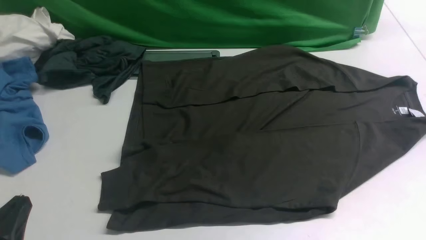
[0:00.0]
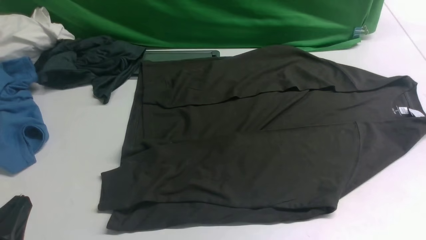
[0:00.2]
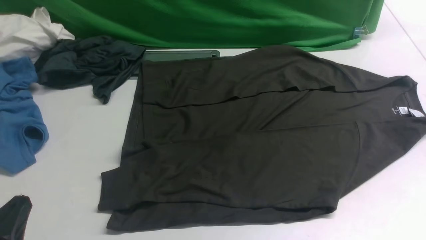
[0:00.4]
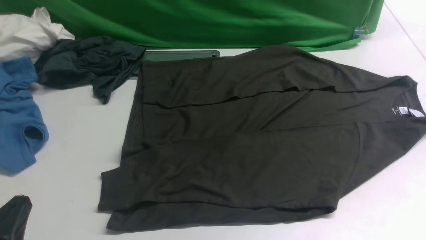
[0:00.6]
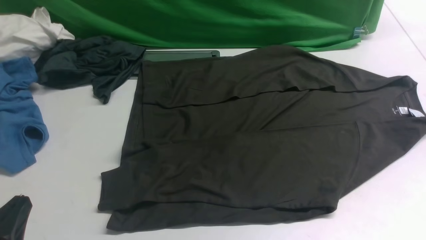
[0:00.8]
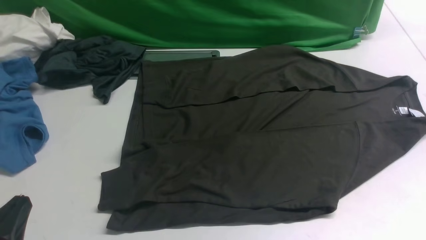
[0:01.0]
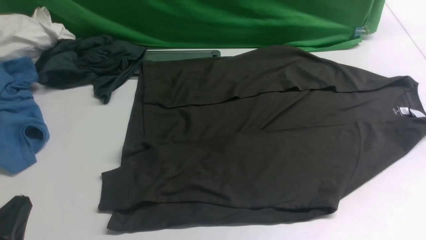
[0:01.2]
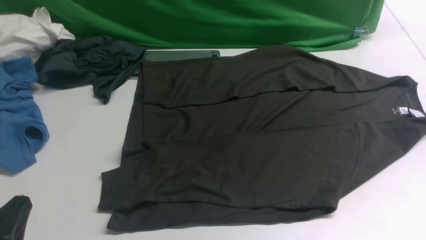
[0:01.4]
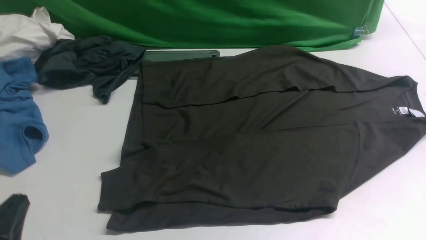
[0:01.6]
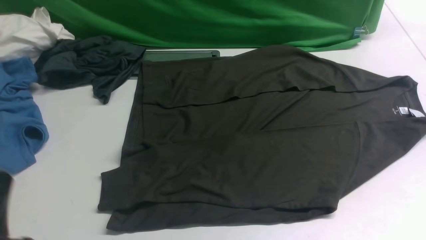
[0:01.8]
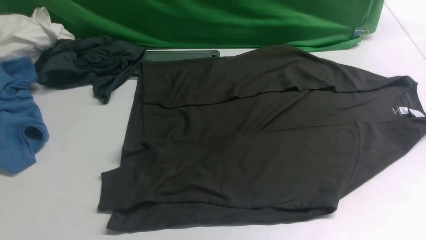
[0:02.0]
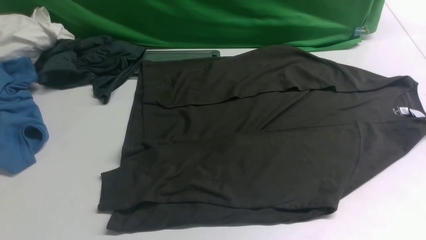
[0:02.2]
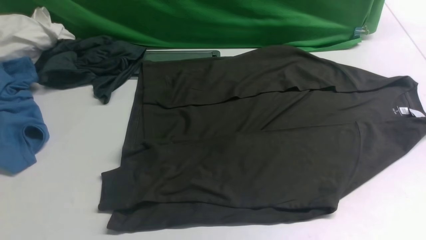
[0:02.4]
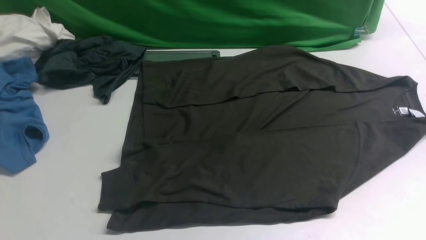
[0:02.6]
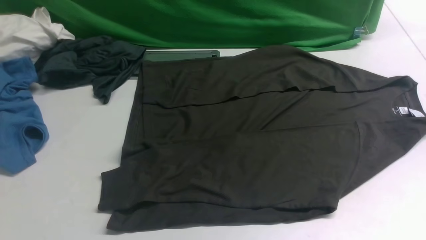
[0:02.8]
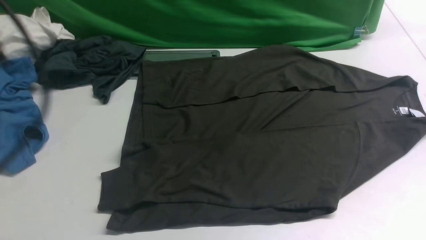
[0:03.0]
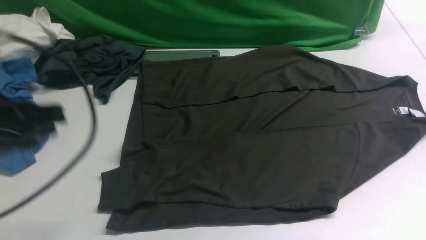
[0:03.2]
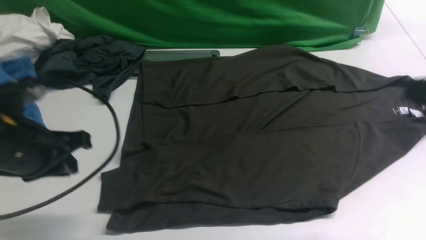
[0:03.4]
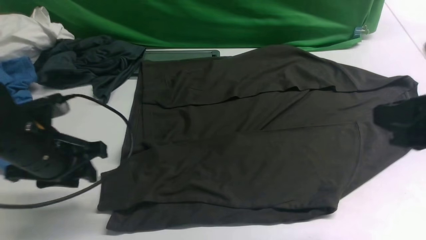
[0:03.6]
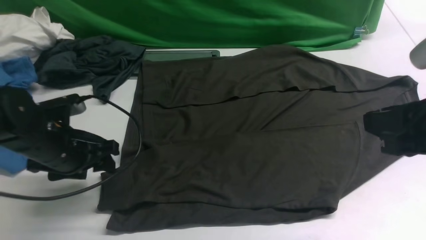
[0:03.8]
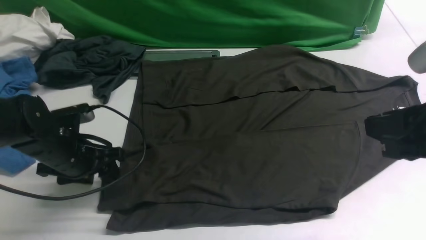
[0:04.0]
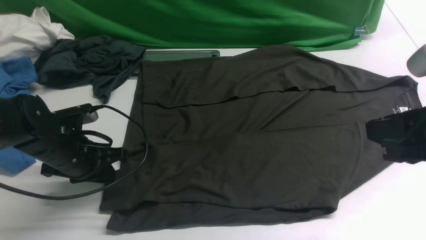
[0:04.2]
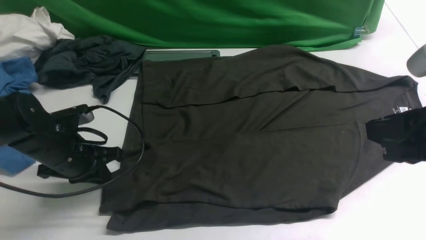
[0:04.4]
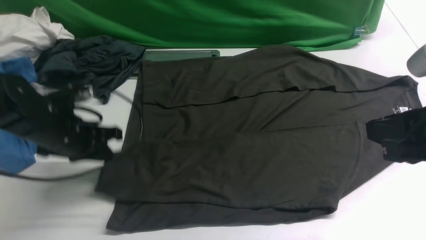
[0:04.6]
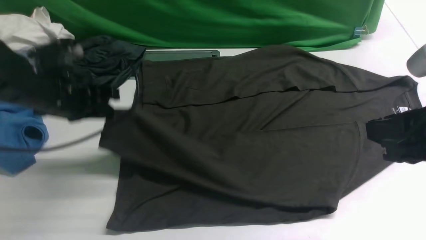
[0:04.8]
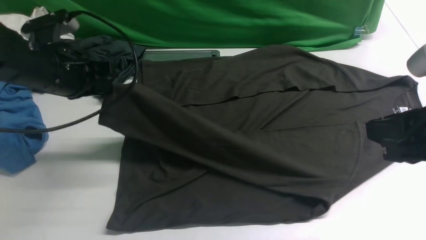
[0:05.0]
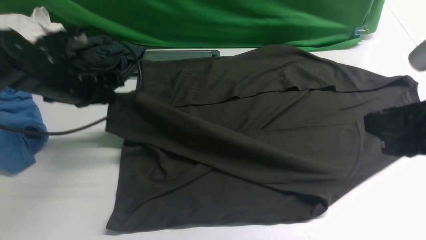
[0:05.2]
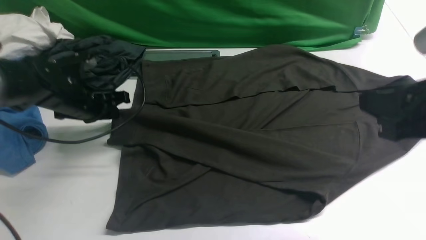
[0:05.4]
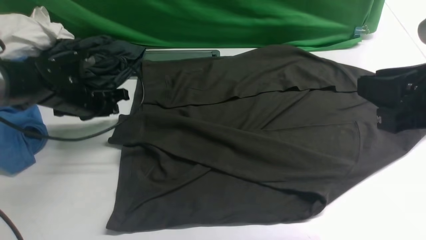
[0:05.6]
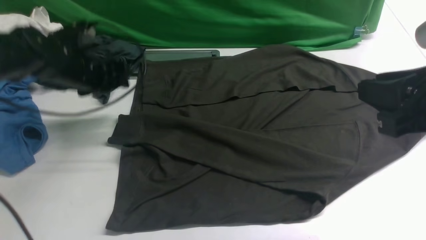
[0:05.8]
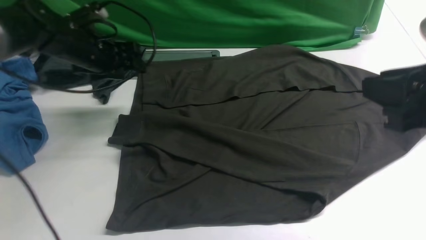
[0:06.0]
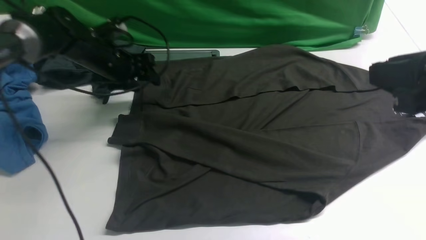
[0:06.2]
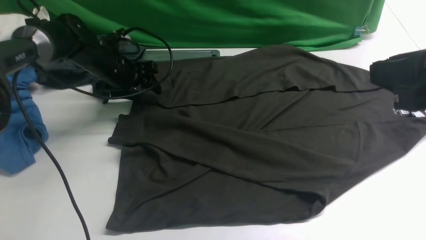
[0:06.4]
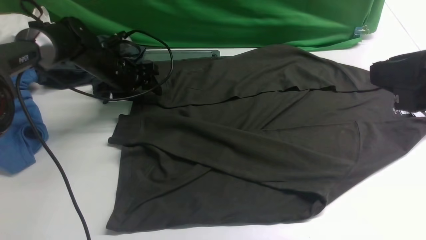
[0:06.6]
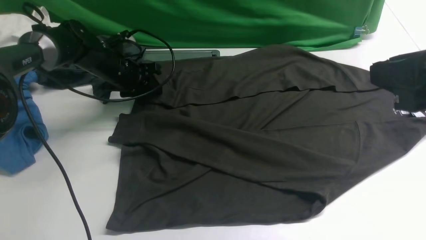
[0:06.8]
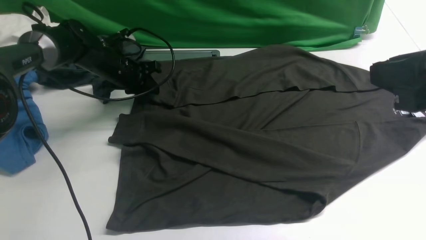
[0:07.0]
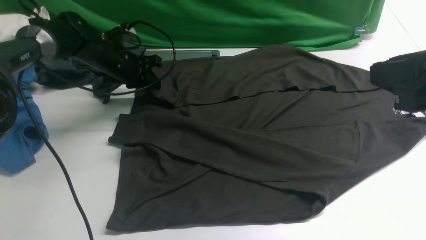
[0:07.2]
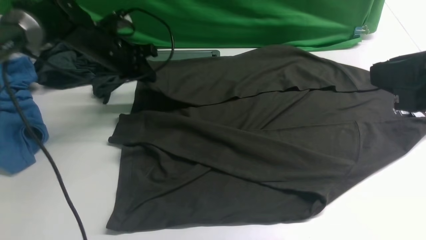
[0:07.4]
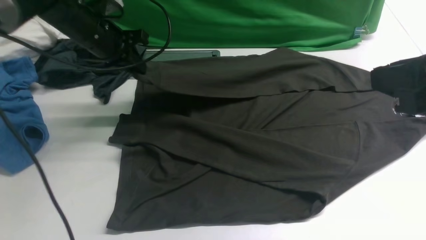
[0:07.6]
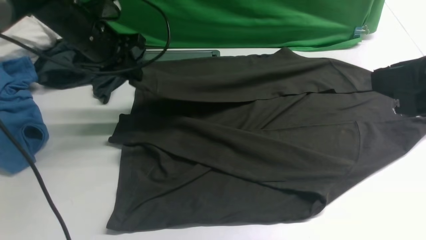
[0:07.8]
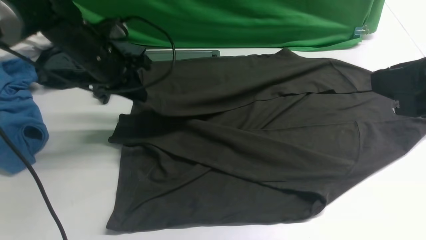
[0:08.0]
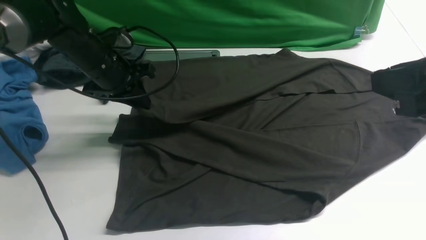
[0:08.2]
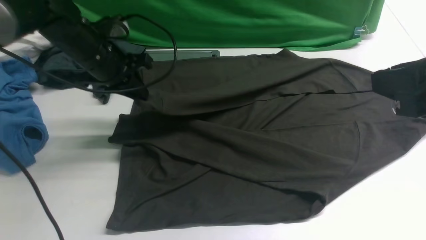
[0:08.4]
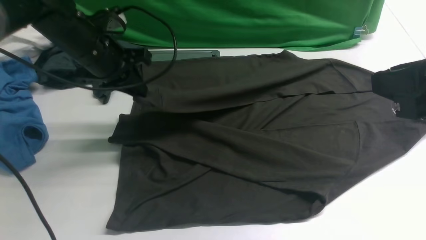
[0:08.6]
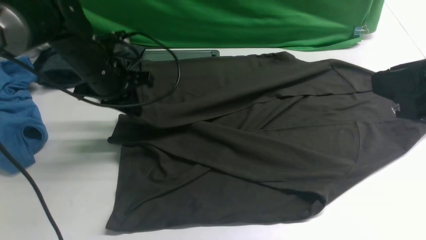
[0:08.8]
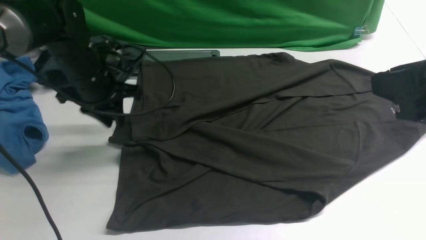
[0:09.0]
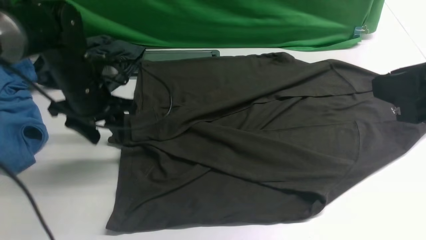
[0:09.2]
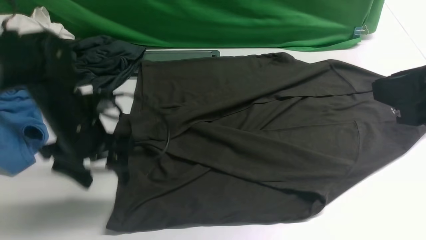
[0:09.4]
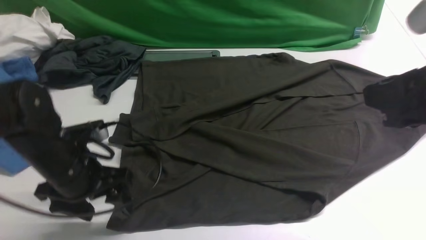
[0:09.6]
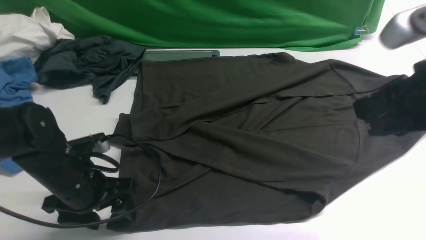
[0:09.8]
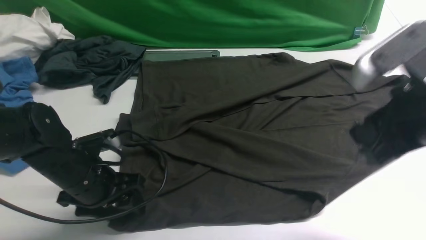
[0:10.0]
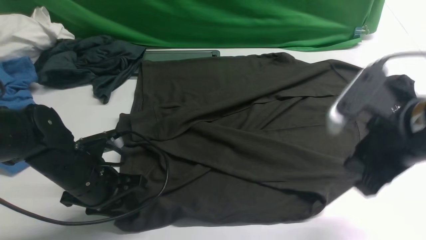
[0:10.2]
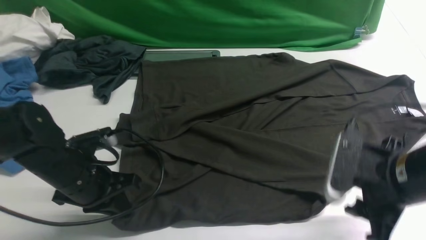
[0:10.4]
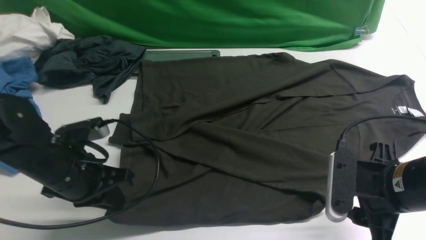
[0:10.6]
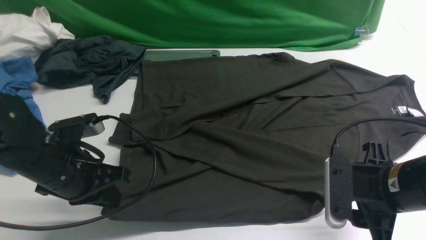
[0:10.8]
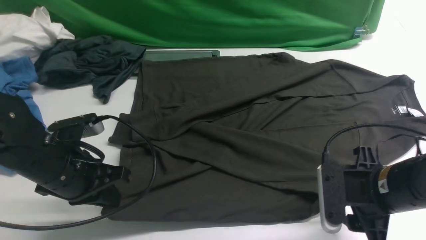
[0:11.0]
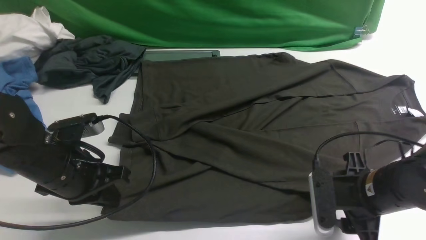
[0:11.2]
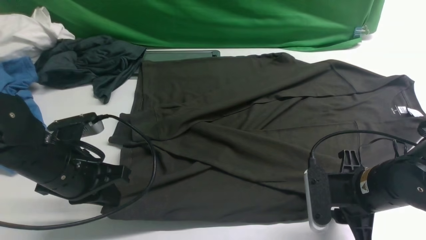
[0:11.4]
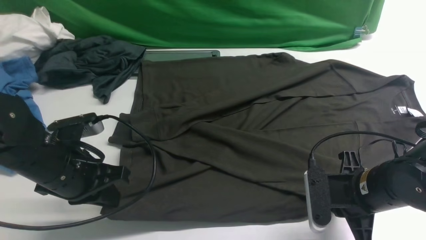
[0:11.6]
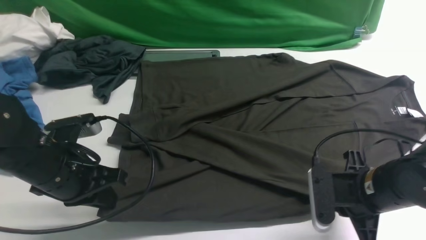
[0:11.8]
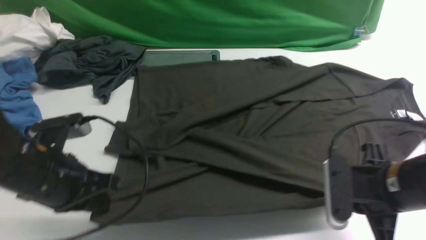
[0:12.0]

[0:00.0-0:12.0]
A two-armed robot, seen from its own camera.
Step, 0:00.0 to 0:04.6: use the left arm to clamp the cuff closest to it.
Step, 0:04.8 to 0:05.4: use the left arm to drag and place the cuff at the centered position on the left edge of the fabric.
Step, 0:05.8 to 0:07.2: use the left arm to clamp the cuff farthest from it.
Step, 0:07.4 to 0:09.0: use the left arm to drag and drop the cuff onto the cuff closest to the left arm.
0:01.6 to 0:03.0: The left gripper travels upward and forward by about 20 cm.
0:03.0 to 0:04.4: The right gripper goes about 10 cm downward and to the left, while the left gripper travels downward and forward by about 25 cm, and opens, then closes once more.
0:04.4 to 0:06.0: The left gripper heads forward, covering some 15 cm, and opens up.
0:06.0 to 0:07.6: The left gripper closes its fingers.
0:07.6 to 0:09.0: The left gripper goes some 5 cm backward.
0:09.0 to 0:10.4: The right gripper shifts roughly 15 cm downward, while the left gripper is displaced backward by about 15 cm, and opens and closes again.
0:10.4 to 0:12.0: The right gripper closes its fingers; the left gripper shifts by roughly 5 cm.

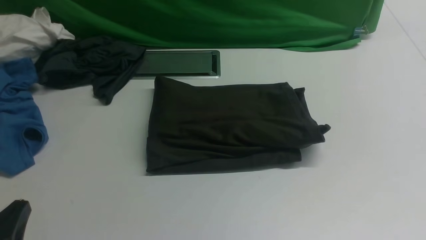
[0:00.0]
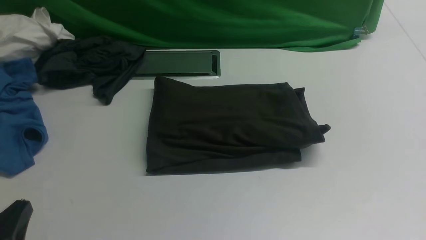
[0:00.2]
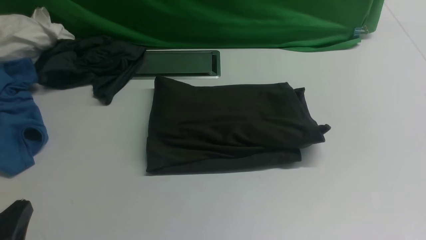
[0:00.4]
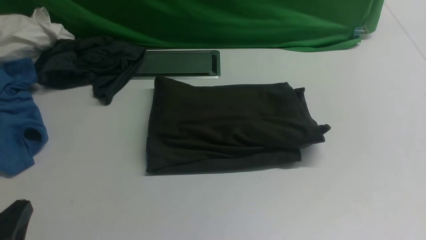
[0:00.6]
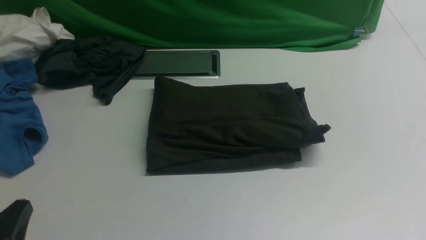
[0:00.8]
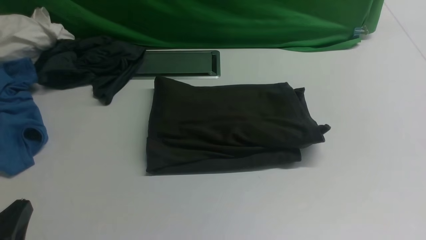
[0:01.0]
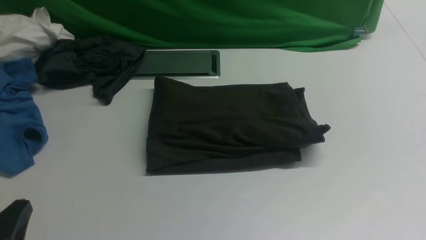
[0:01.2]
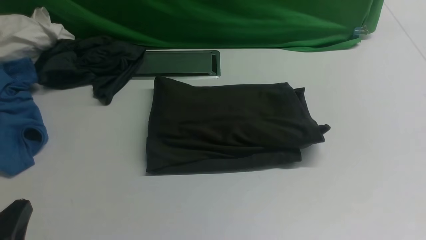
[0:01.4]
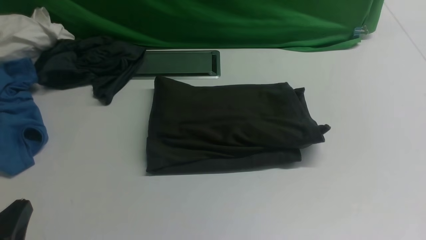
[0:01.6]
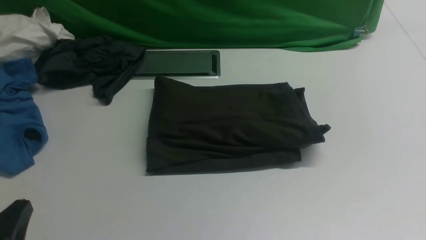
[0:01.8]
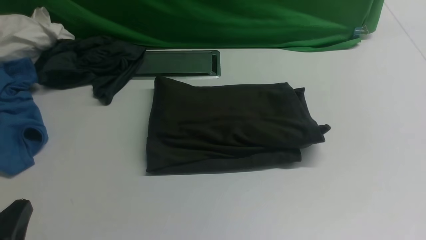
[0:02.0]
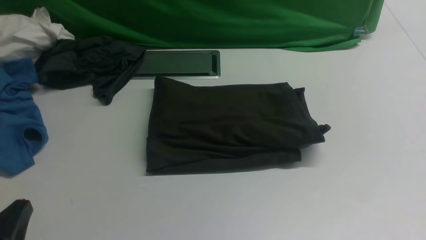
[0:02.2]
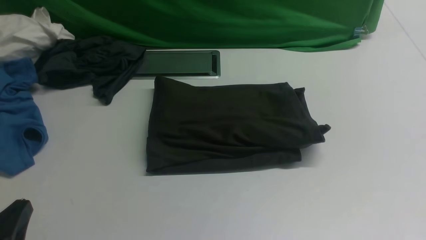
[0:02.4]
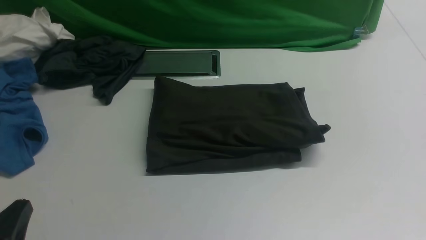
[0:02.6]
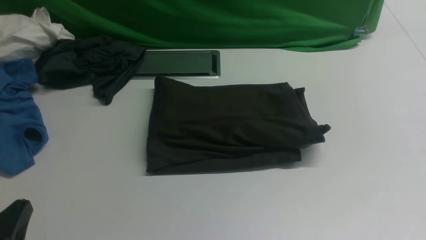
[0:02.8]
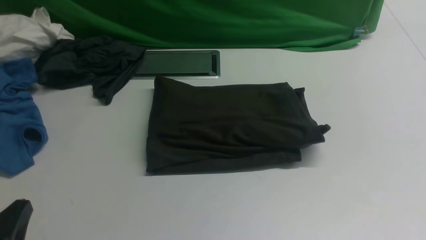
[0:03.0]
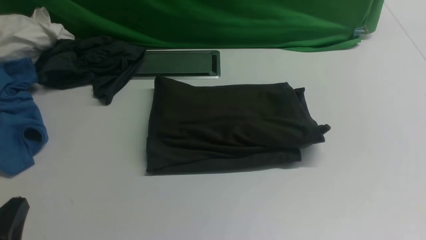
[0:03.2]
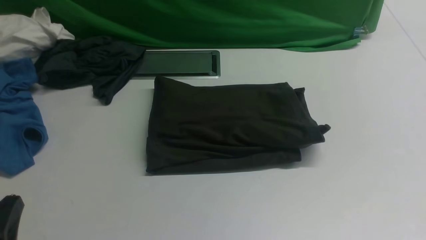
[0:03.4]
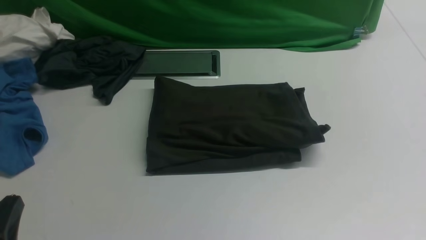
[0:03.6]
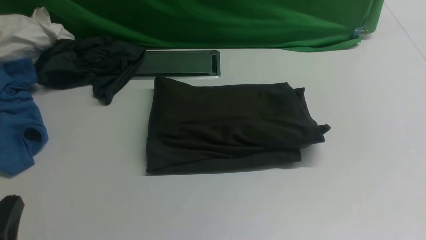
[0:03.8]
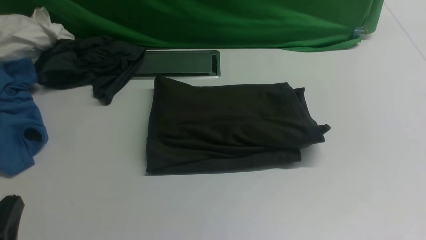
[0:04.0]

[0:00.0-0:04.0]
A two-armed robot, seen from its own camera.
0:02.6 to 0:04.0: Both grippers stay about where they are.
